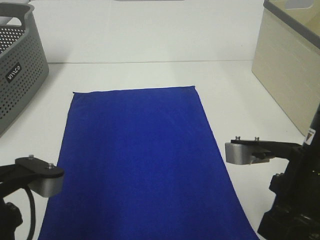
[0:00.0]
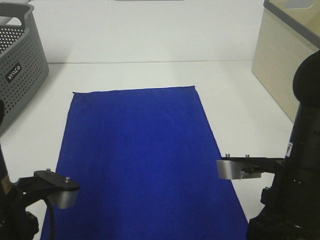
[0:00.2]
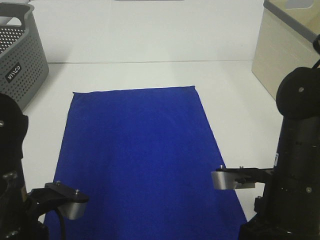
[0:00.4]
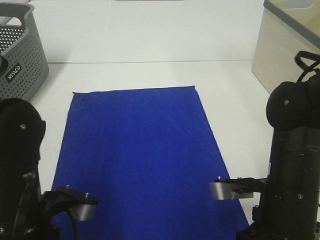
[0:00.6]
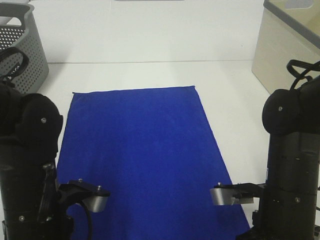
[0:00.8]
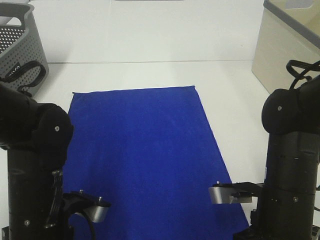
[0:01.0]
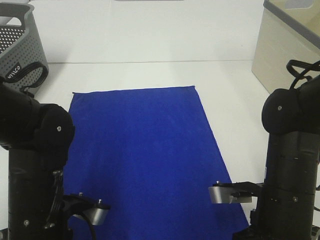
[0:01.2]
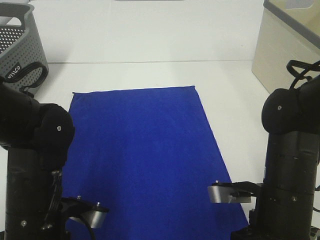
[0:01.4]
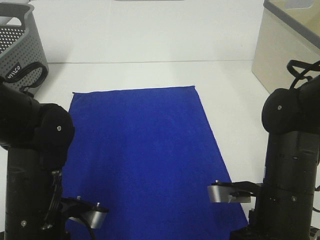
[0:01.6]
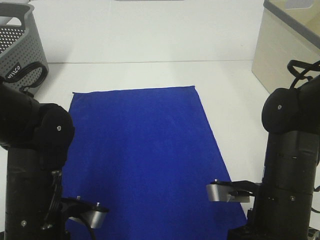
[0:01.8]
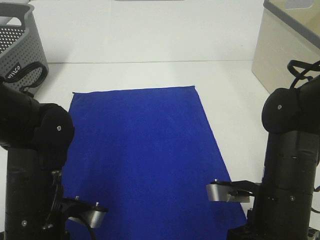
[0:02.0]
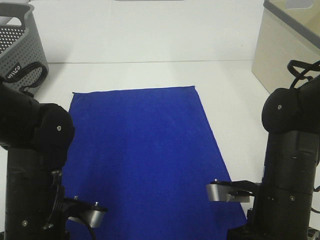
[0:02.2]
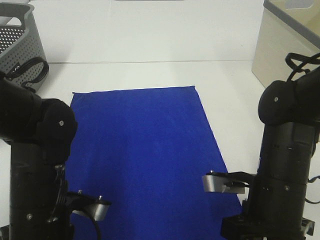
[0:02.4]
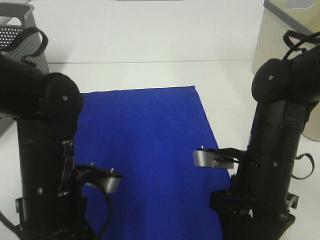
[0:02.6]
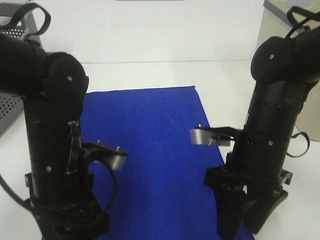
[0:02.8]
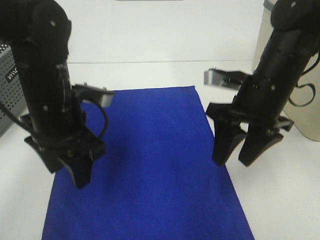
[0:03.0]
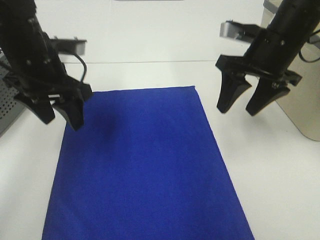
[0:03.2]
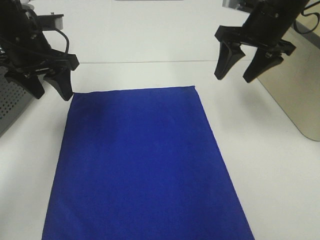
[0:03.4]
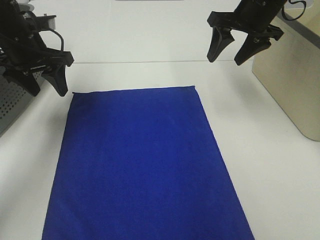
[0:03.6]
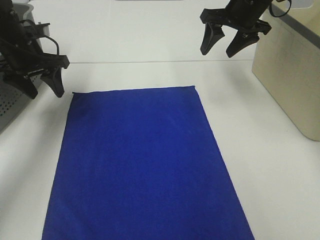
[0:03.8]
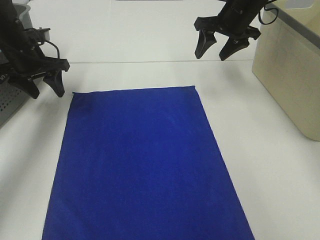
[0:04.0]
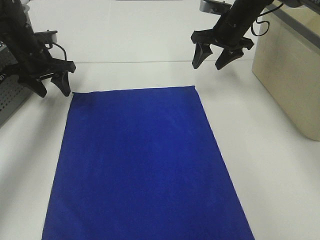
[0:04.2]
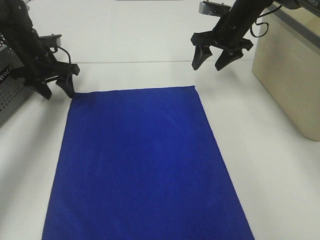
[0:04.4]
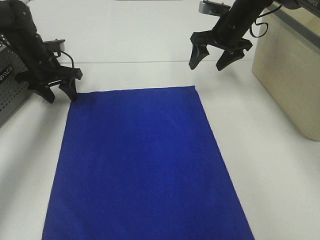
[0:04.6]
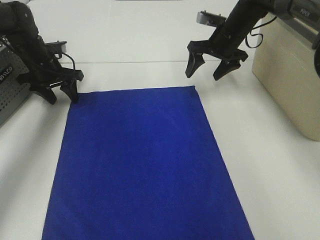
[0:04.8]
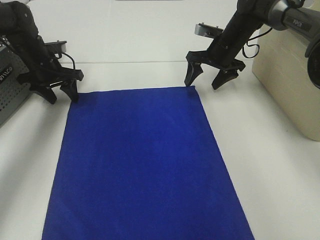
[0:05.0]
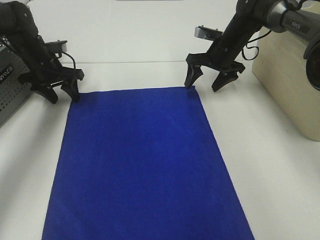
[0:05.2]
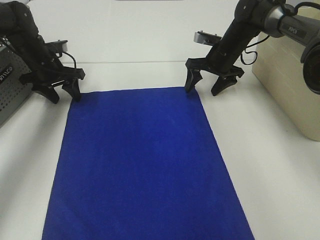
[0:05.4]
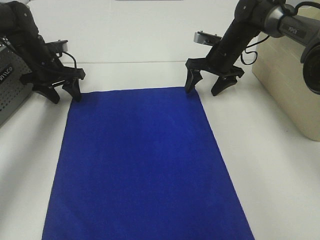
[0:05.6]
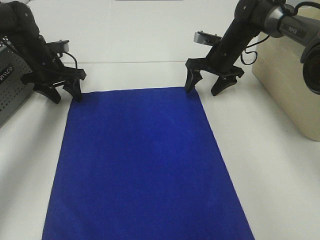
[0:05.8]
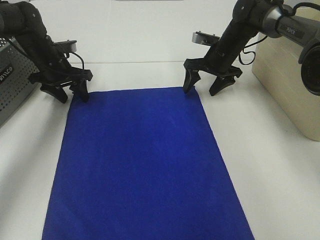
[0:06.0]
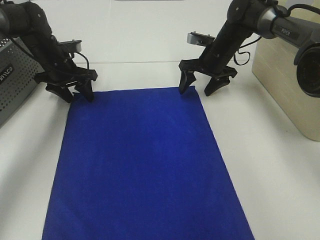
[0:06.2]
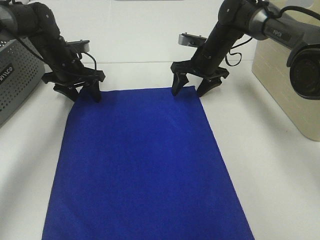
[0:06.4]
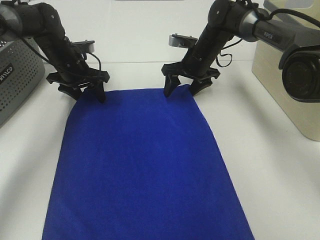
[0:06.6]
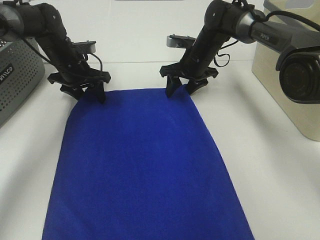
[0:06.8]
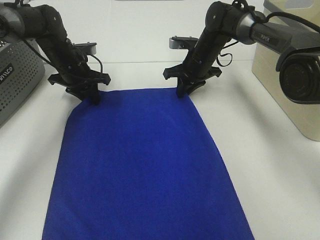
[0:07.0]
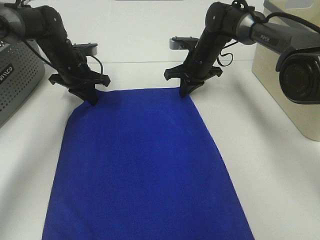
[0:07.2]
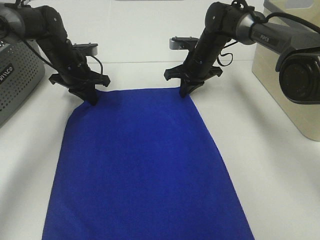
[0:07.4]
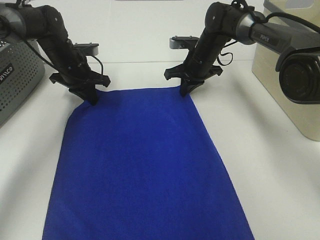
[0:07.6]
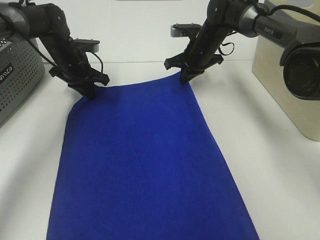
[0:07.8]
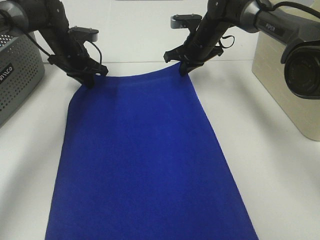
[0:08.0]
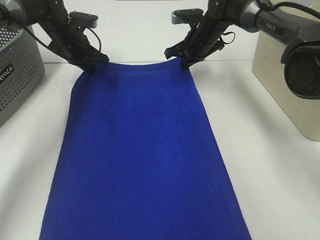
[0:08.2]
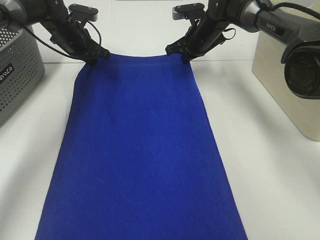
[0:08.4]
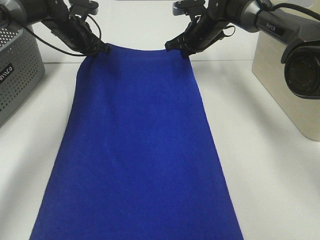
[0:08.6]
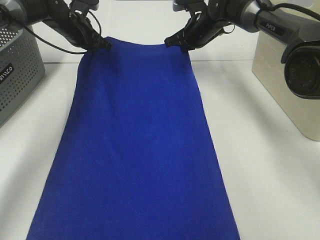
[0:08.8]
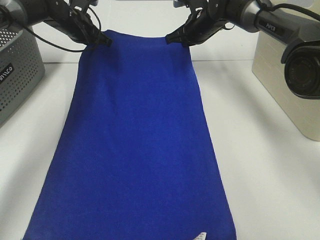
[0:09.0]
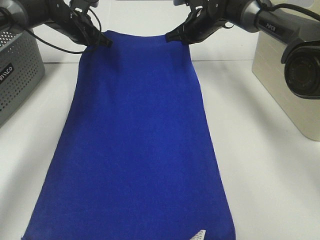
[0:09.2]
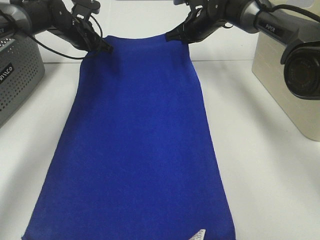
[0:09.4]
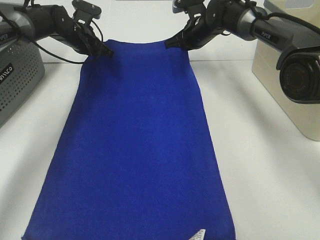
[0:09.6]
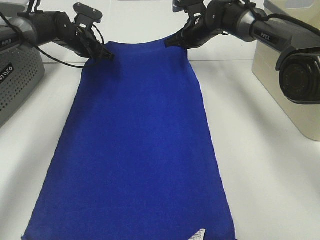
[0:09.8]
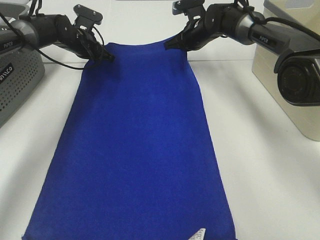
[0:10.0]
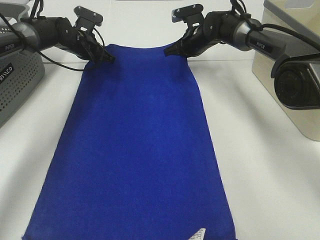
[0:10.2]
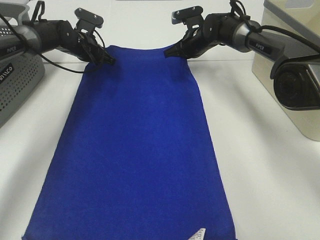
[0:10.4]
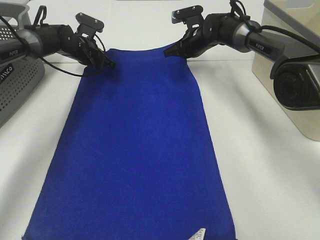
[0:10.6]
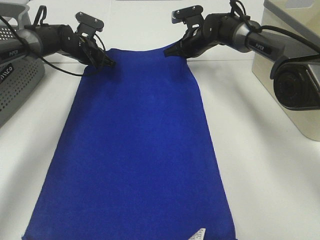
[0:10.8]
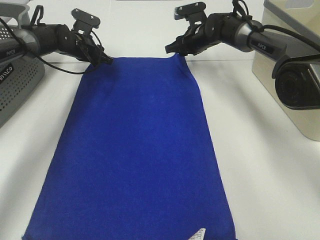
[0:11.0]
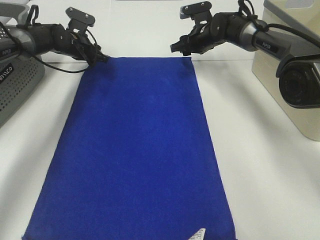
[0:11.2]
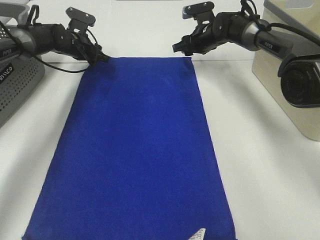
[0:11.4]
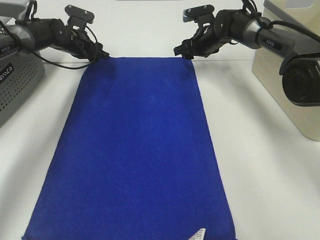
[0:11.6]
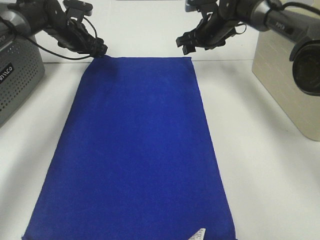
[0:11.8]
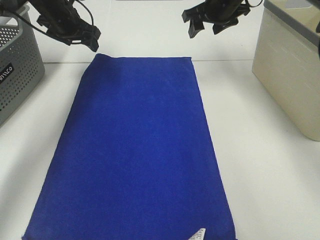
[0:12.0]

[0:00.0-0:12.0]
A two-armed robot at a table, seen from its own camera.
Task of the whole recording: Remove the towel and place it.
Step, 0:00.0 to 0:04.8: Left hand:adjust the blue towel.
Step, 0:00.0 to 0:04.8: Right hand:adjust the blue towel.
0:00.0 to 0:01.6: Both grippers move downward, some 10 cm.
0:01.6 to 0:03.0: The grippers both shift forward and upward by some 15 cm. The left gripper opens. The right gripper opens up.
0:03.0 to 0:04.4: The left gripper is displaced forward and to the left by approximately 25 cm, while the right gripper heads forward, covering approximately 25 cm.
0:04.4 to 0:06.0: The right gripper moves downward, some 5 cm.
0:06.0 to 0:07.6: The right gripper heads to the left, covering roughly 5 cm, and closes; the left gripper closes up.
0:07.6 to 0:09.0: The right gripper is displaced upward by about 5 cm. The left gripper shifts roughly 10 cm forward and upward.
0:09.0 to 0:10.4: The left gripper goes roughly 5 cm downward.
0:10.4 to 0:12.0: Both grippers move upward, roughly 10 cm. The right gripper opens up, while the left gripper opens up.

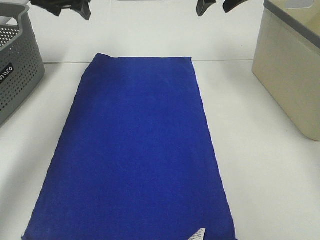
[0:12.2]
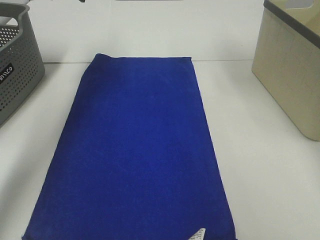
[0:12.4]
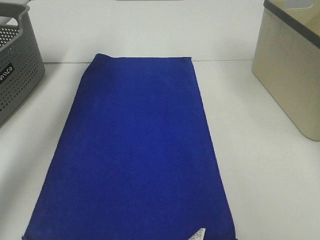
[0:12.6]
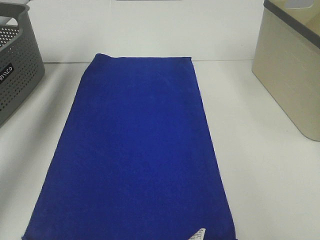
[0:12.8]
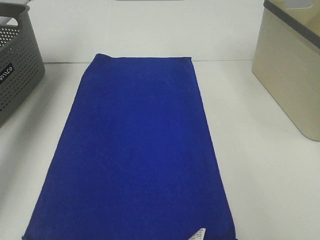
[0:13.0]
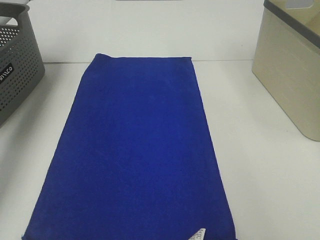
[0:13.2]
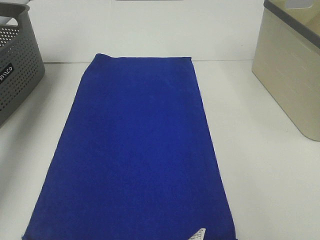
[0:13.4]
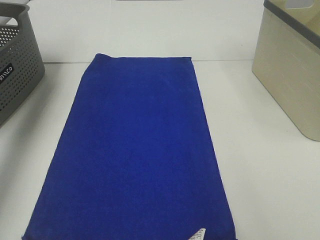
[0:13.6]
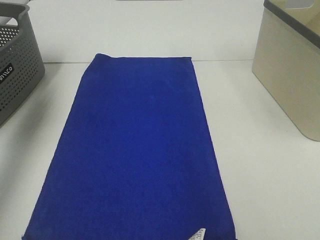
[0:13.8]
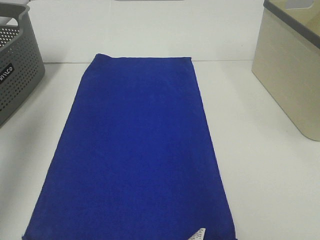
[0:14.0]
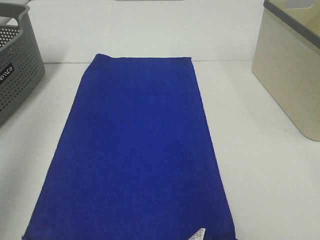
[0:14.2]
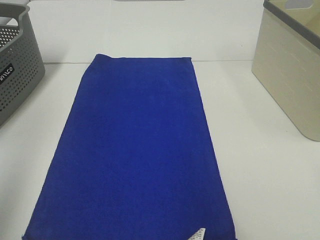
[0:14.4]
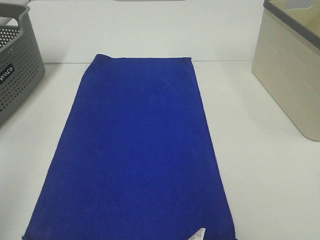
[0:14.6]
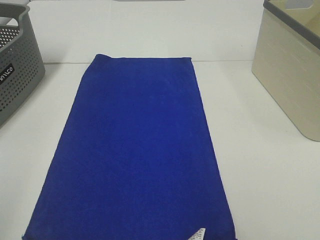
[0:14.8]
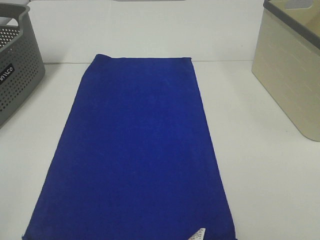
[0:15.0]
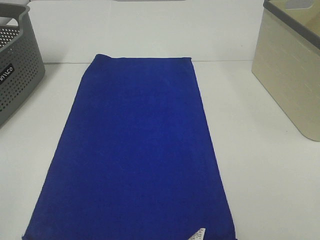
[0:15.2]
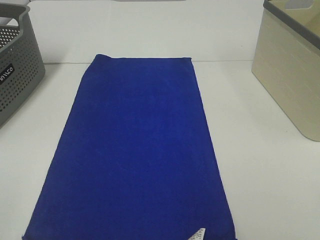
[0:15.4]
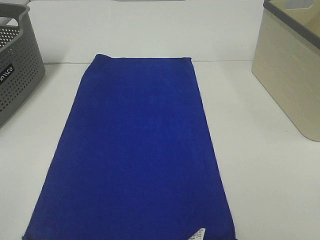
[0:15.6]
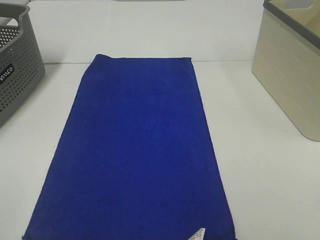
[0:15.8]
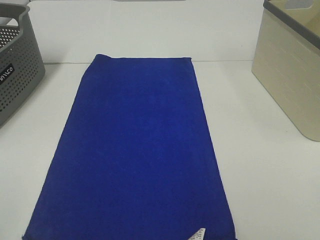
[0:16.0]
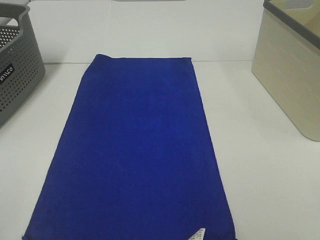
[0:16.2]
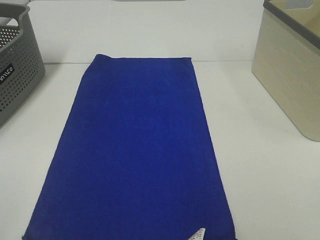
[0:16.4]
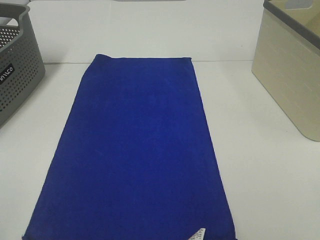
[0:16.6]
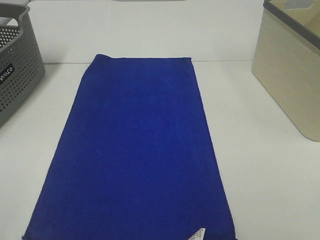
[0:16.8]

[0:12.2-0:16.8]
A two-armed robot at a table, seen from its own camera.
Task of the whole recording: Remove the towel and place it.
0:12.2 to 0:13.8: The left gripper shifts roughly 25 cm backward, to the left and upward. Meanwhile the right gripper moves backward, upward and to the right, approximately 20 cm.
0:13.8 to 0:15.2: The left gripper heads backward, covering roughly 35 cm.

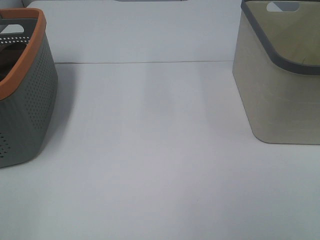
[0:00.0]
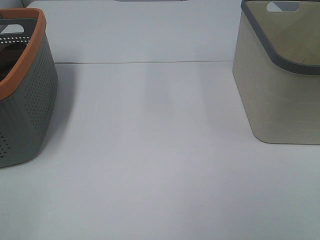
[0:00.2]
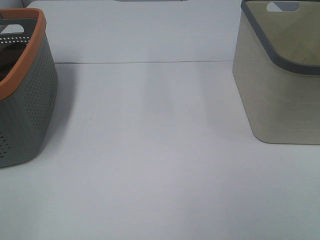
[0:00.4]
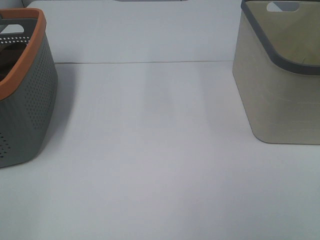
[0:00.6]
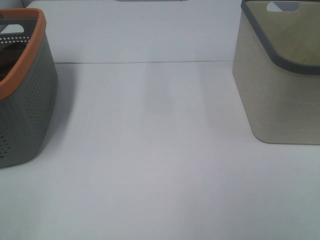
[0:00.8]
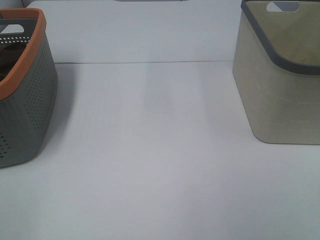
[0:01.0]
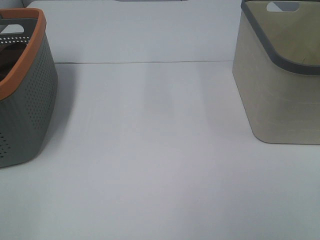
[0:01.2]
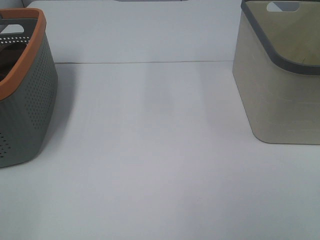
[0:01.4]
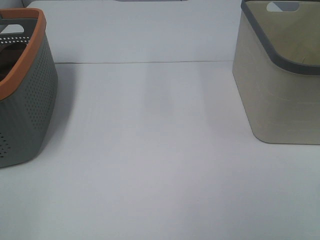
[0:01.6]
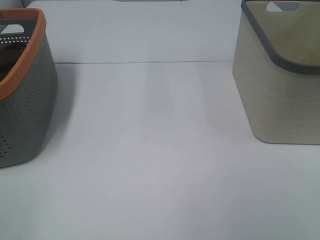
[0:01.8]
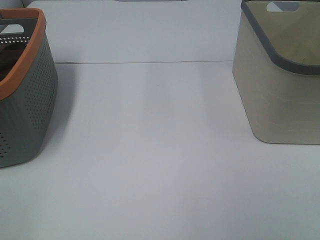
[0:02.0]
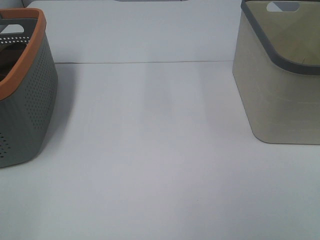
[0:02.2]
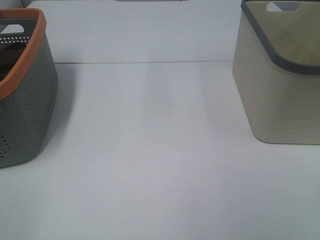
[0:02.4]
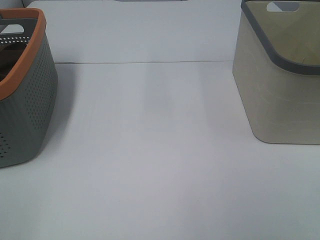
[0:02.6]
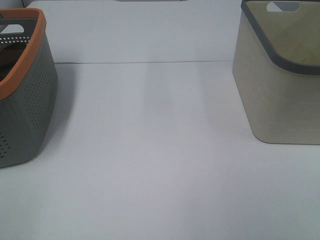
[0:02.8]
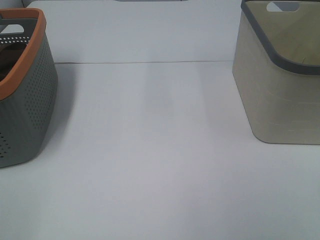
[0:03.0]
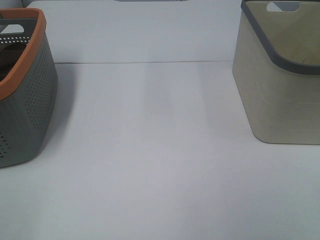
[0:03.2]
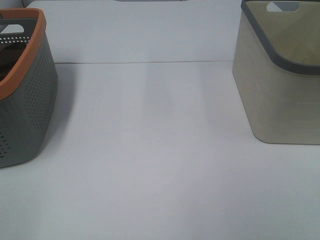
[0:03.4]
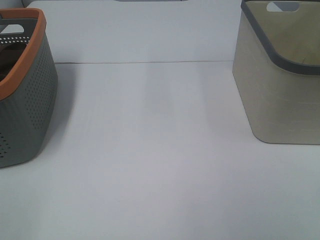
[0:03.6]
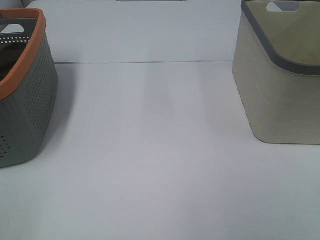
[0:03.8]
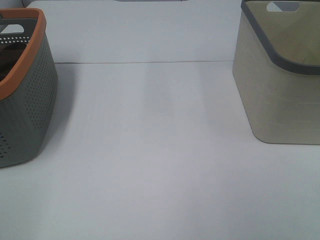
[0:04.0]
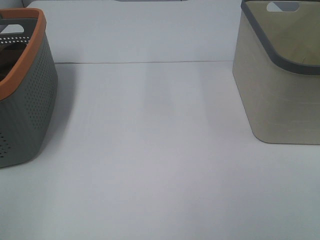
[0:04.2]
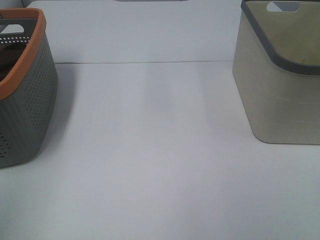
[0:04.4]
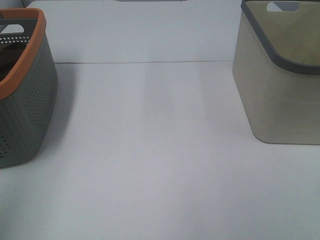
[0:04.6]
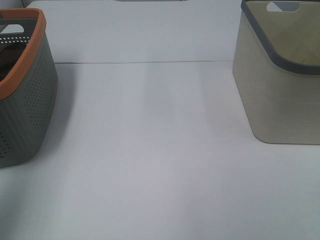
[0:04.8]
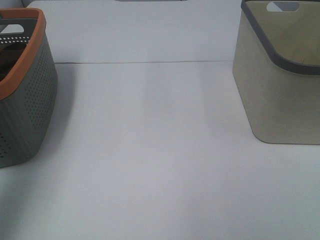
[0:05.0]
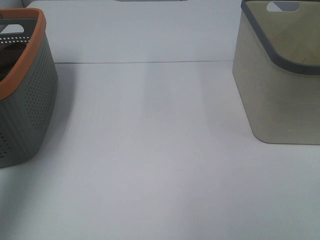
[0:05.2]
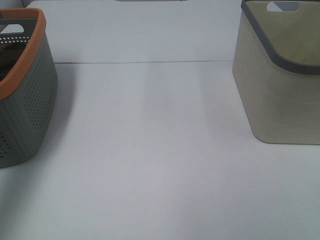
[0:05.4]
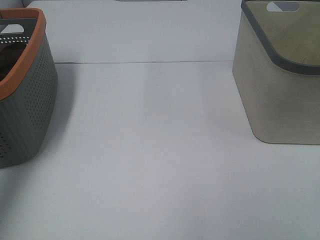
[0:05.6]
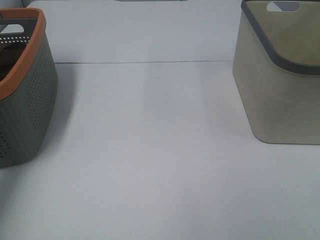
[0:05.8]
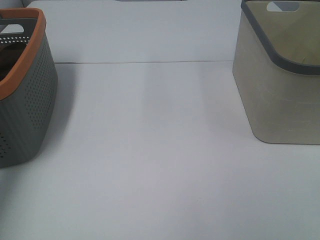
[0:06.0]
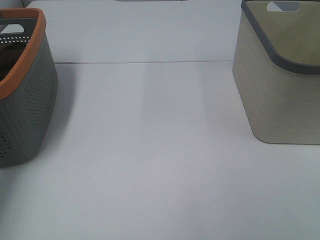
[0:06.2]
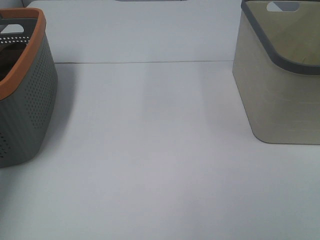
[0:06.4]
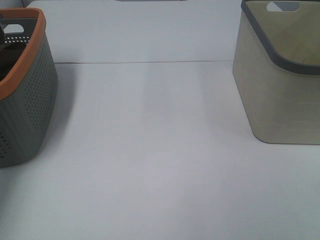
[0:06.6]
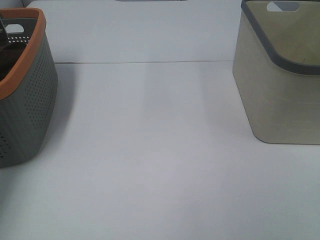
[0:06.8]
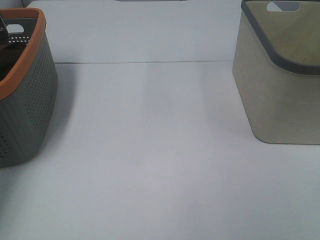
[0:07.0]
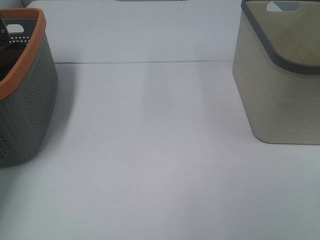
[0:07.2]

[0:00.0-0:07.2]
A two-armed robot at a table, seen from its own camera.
Task of the whole recording: Remove the towel and place it.
0:00.0 to 0:02.8: Neither gripper changes place.
0:04.4 to 0:05.8: The left gripper heads forward, covering roughly 30 cm.
